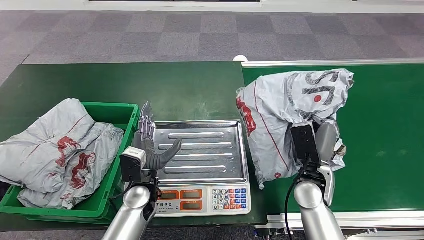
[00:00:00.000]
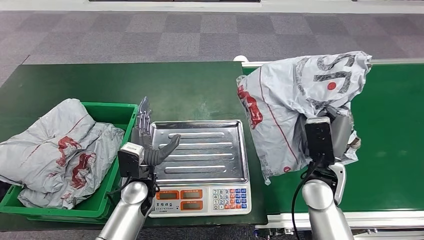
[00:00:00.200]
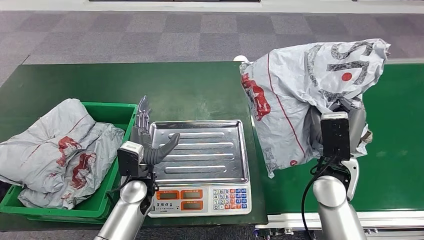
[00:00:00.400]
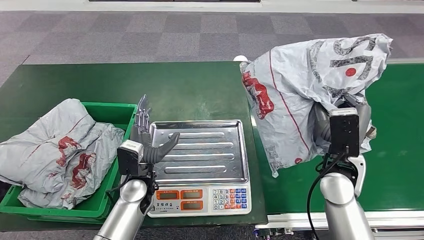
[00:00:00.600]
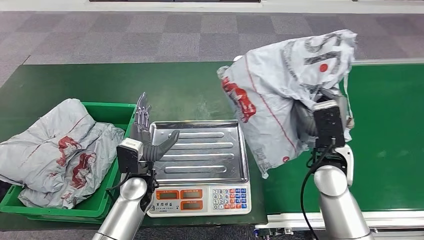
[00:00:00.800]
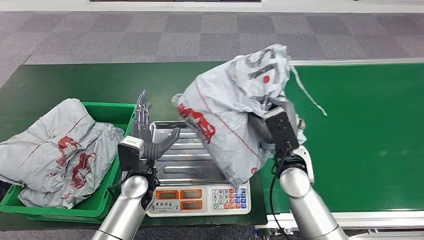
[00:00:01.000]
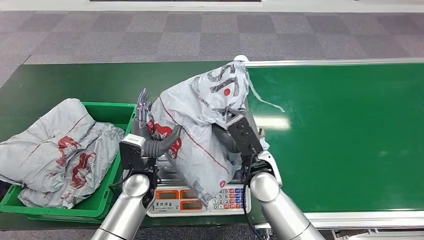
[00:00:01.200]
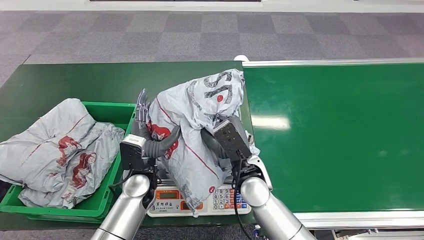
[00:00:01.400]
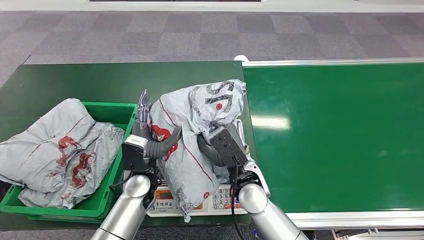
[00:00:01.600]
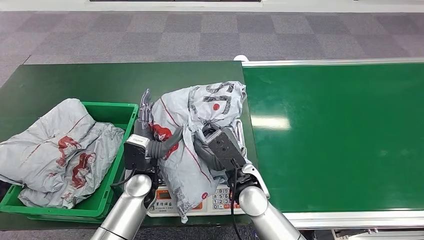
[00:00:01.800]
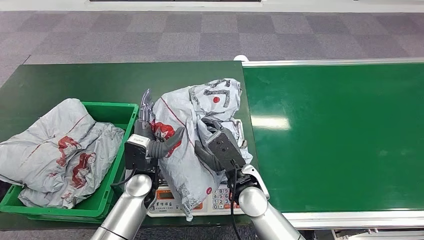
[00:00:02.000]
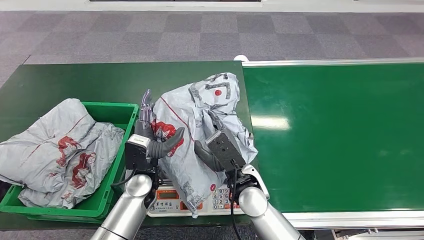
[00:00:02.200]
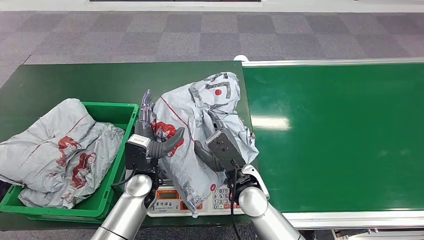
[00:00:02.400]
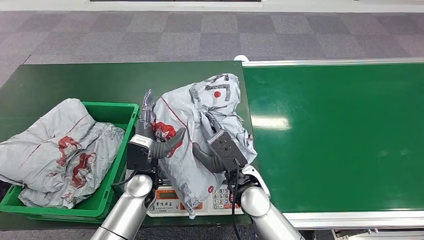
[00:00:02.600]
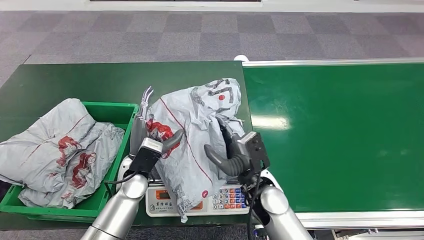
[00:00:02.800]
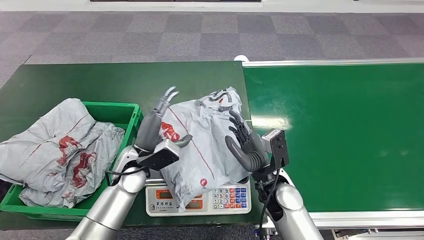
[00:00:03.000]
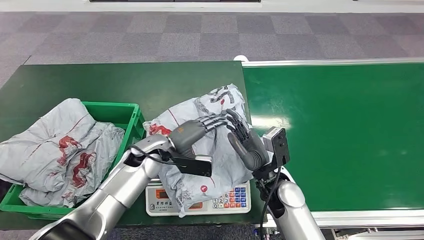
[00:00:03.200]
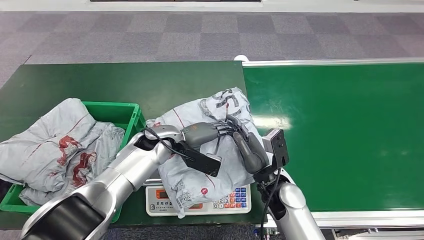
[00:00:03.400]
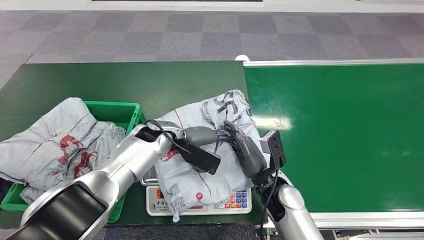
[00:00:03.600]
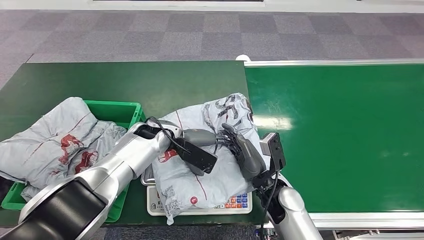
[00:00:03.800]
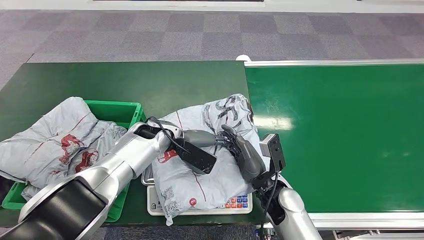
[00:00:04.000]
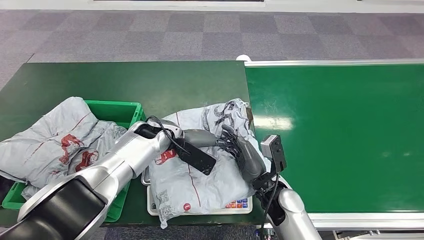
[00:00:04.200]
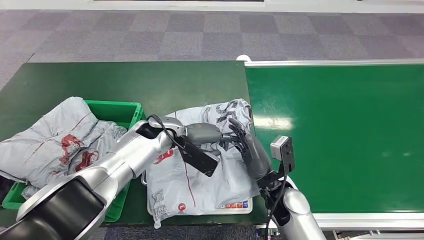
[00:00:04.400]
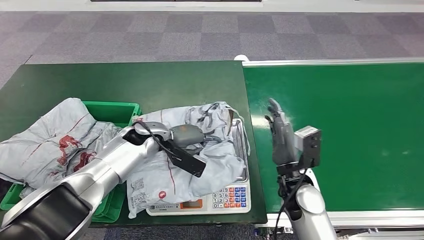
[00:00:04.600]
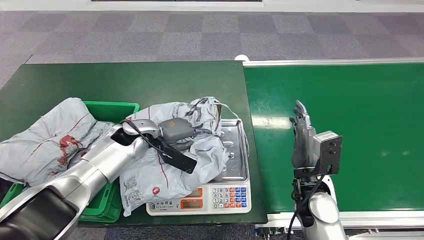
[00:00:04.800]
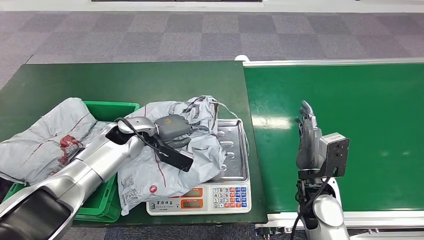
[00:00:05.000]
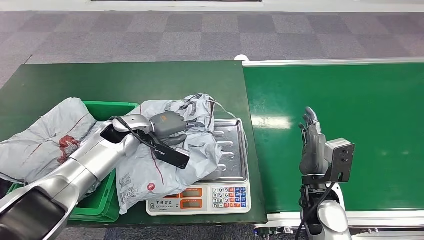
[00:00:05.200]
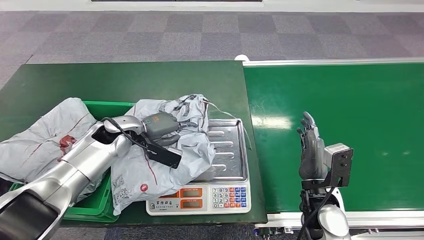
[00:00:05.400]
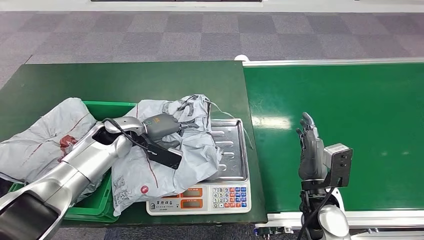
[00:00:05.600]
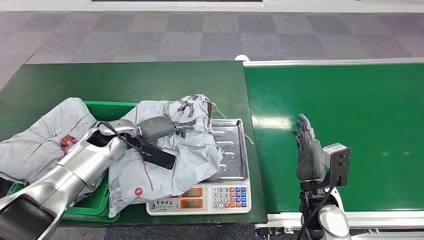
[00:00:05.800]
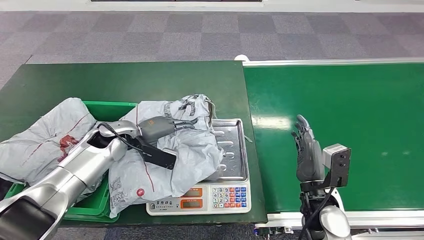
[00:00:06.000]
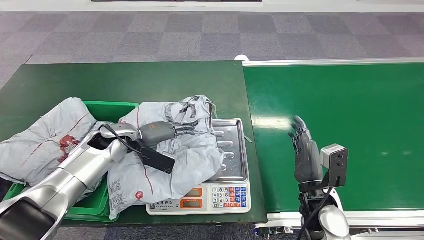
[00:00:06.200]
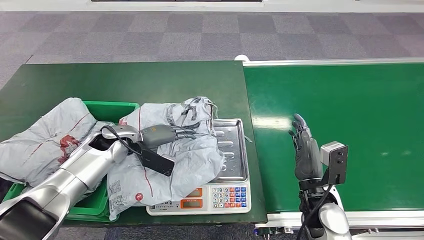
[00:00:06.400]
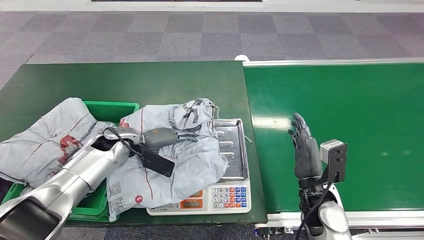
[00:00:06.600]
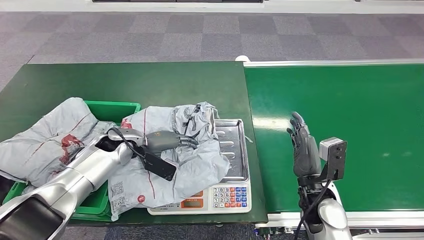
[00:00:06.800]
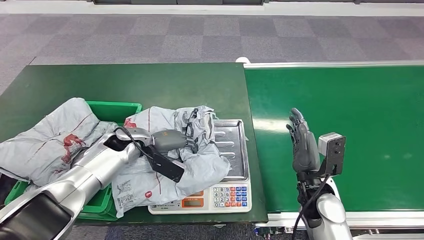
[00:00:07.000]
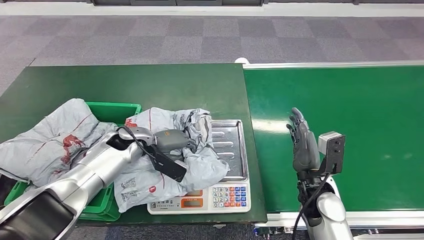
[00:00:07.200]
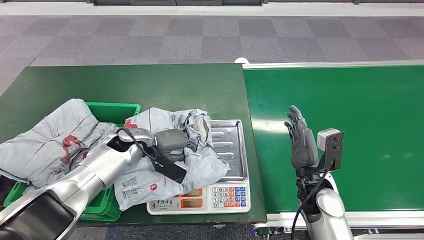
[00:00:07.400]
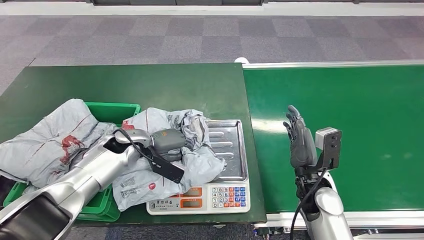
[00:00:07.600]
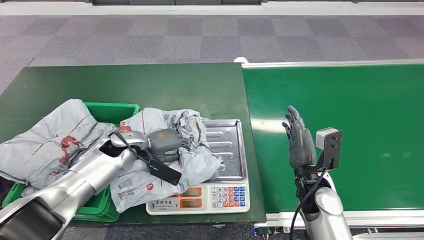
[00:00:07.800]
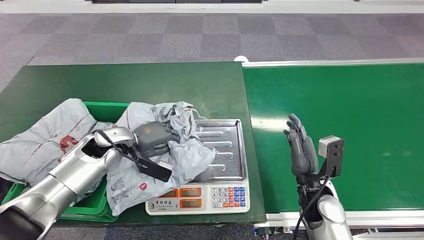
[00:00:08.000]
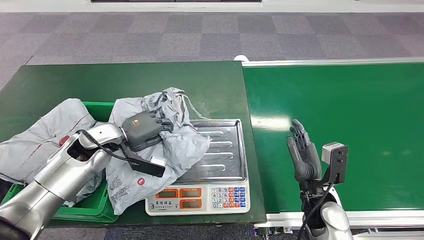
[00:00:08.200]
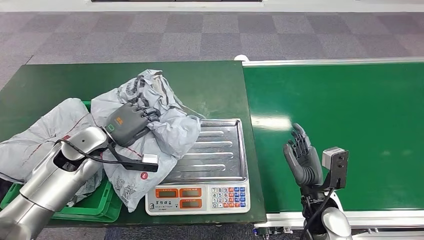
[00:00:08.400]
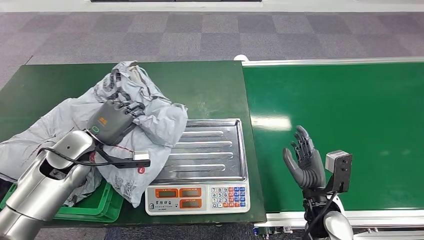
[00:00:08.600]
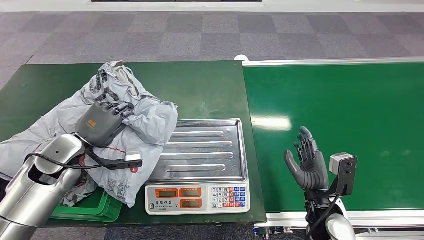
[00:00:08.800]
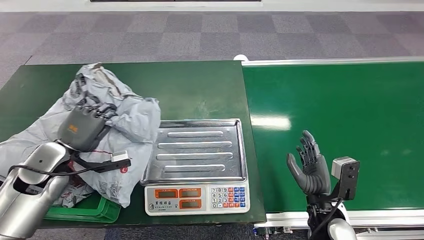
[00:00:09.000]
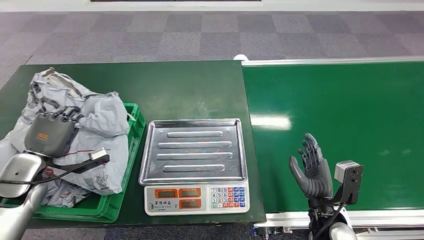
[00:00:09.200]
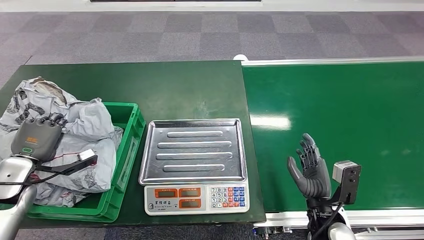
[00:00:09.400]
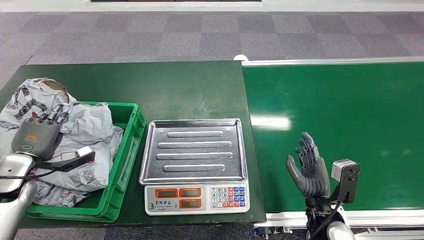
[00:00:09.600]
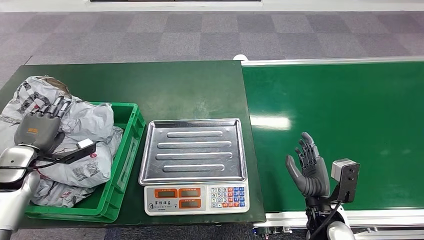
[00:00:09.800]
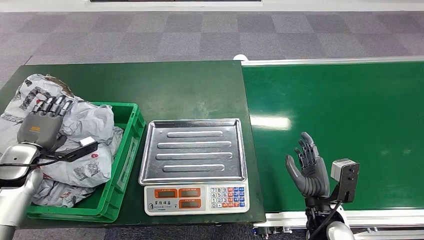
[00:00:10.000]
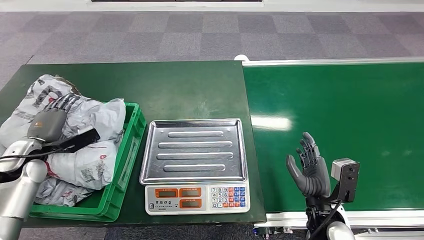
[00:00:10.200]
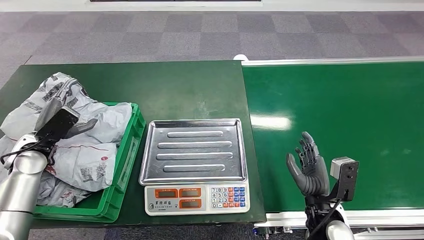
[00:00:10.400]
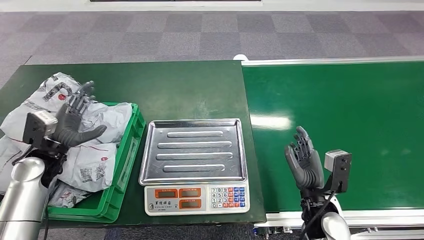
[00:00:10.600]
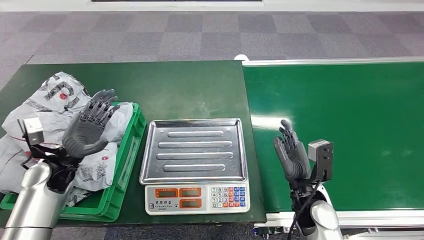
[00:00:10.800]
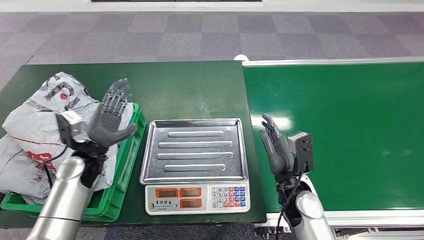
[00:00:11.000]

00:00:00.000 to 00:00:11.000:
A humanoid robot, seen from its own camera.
Task of the whole recording: Weigh the package on the weighing device and place it in the left basket.
Step, 00:00:00.000 to 00:00:03.000: Place the package onto the inbound machine.
Step, 00:00:03.400 to 00:00:08.800: Pick up the package from the inbound machine.
Step, 00:00:09.000 to 00:00:11.000: Place the package into the parcel locker.
00:00:04.800 to 00:00:06.200: The left hand travels to the left by some 5 cm.
